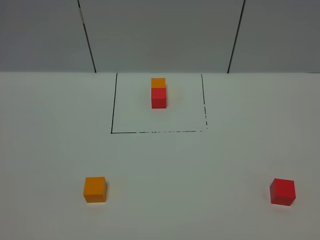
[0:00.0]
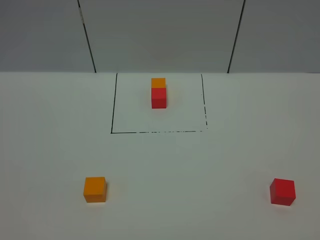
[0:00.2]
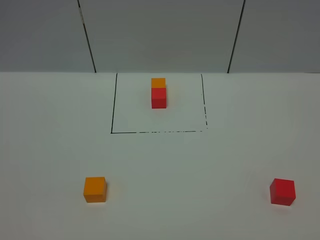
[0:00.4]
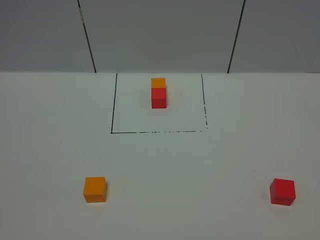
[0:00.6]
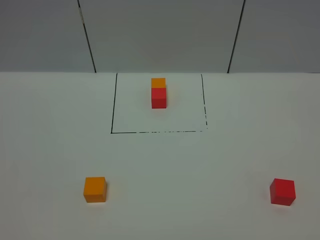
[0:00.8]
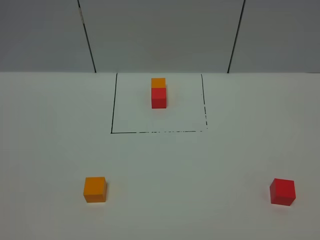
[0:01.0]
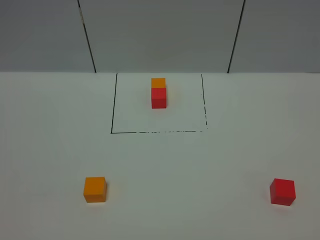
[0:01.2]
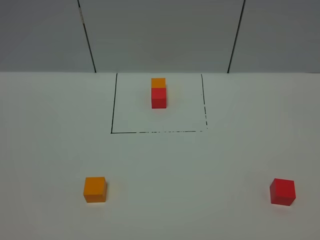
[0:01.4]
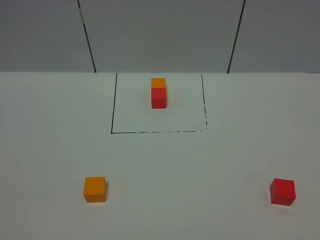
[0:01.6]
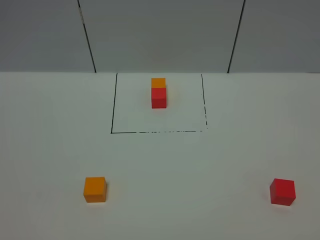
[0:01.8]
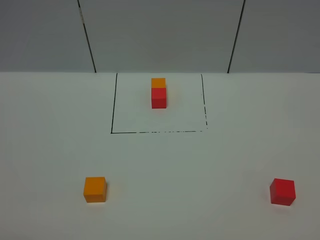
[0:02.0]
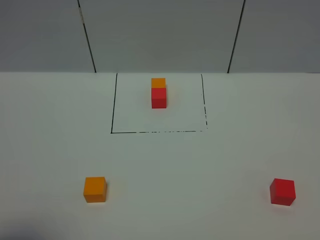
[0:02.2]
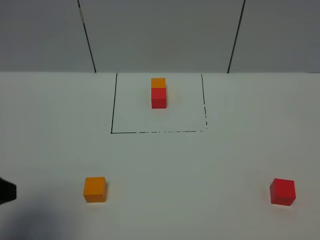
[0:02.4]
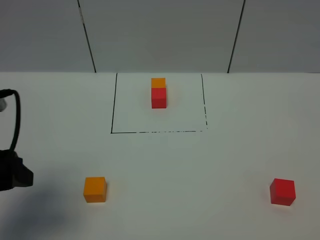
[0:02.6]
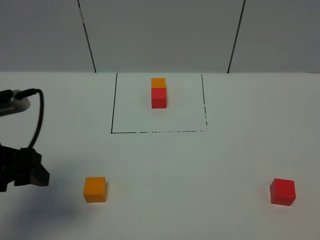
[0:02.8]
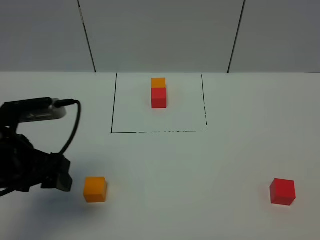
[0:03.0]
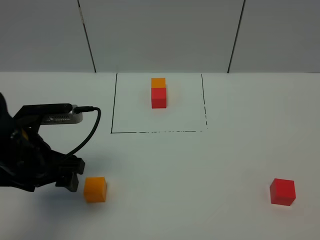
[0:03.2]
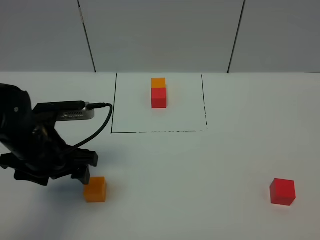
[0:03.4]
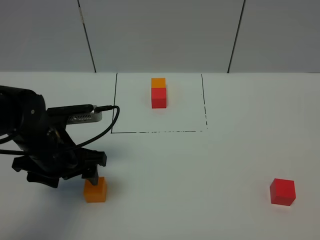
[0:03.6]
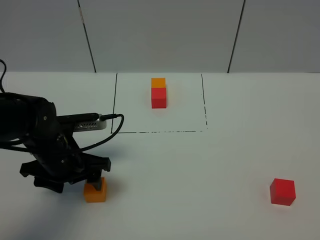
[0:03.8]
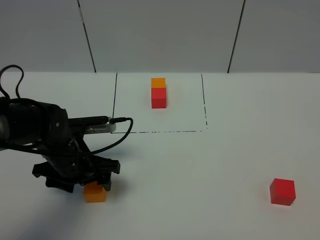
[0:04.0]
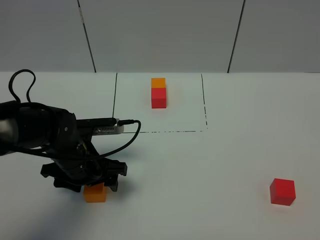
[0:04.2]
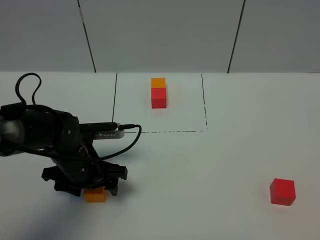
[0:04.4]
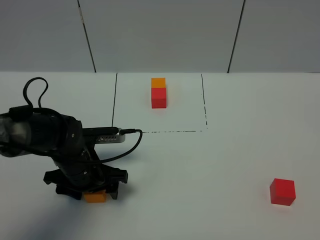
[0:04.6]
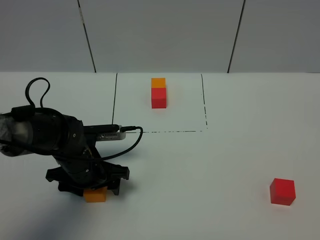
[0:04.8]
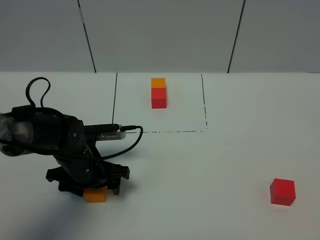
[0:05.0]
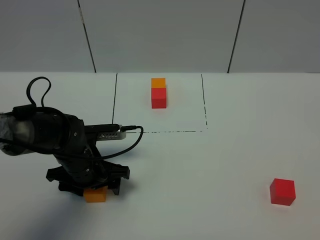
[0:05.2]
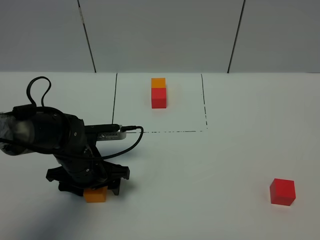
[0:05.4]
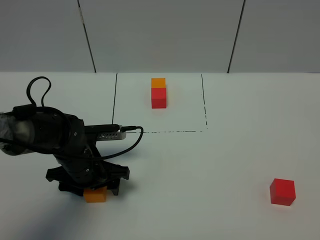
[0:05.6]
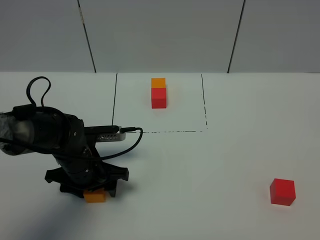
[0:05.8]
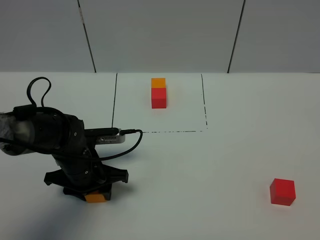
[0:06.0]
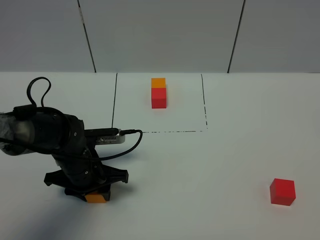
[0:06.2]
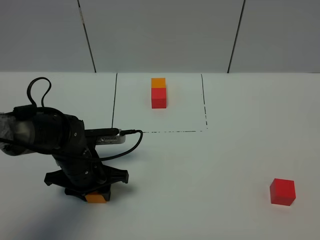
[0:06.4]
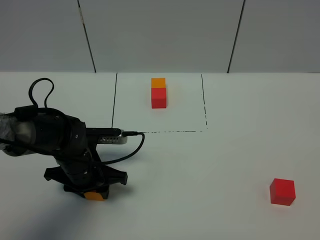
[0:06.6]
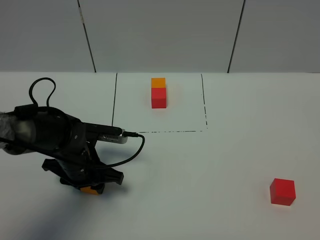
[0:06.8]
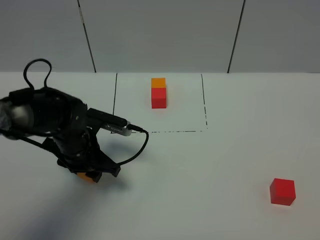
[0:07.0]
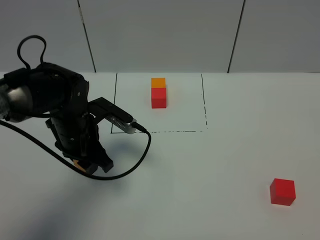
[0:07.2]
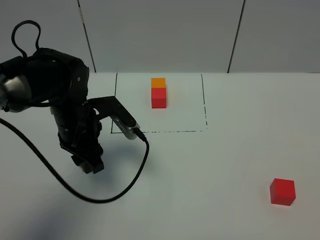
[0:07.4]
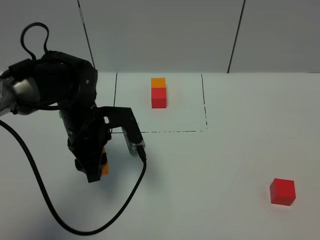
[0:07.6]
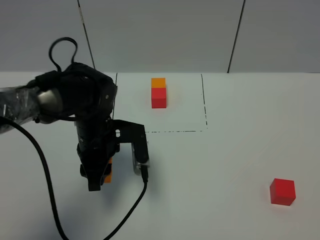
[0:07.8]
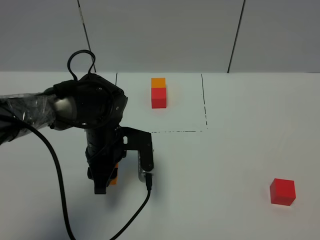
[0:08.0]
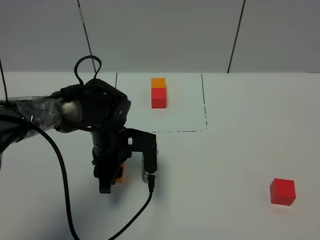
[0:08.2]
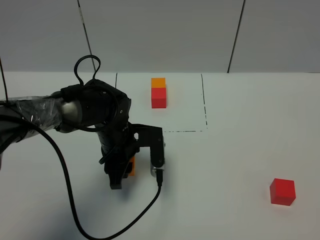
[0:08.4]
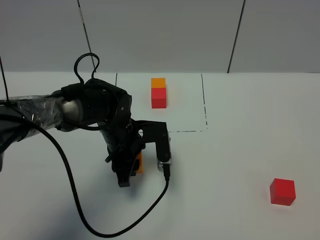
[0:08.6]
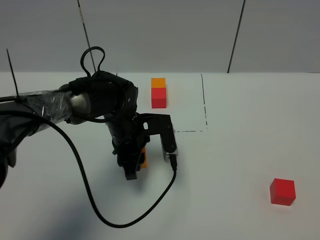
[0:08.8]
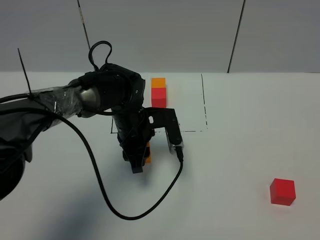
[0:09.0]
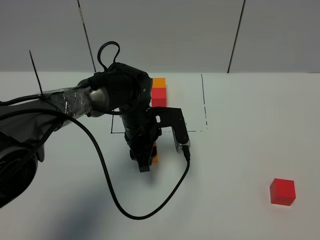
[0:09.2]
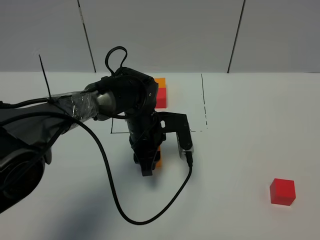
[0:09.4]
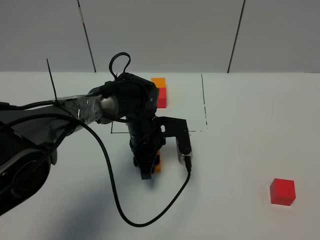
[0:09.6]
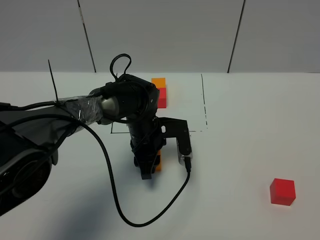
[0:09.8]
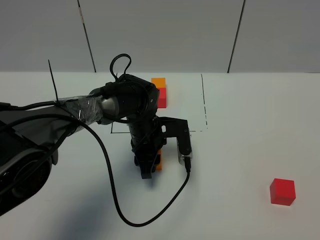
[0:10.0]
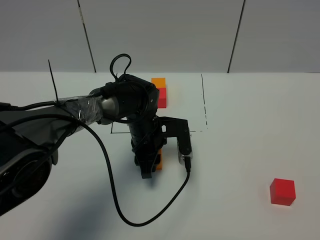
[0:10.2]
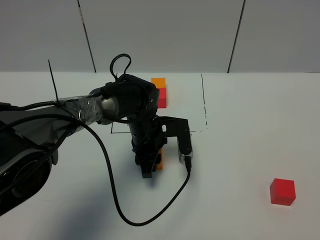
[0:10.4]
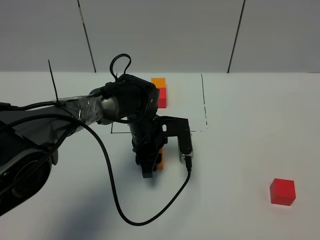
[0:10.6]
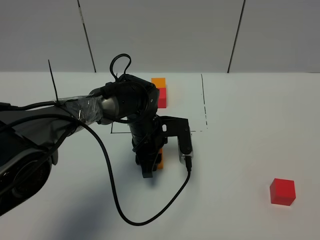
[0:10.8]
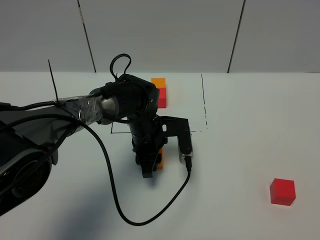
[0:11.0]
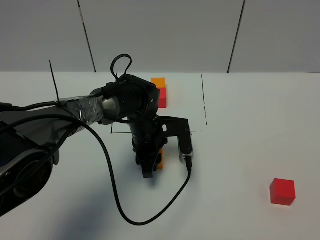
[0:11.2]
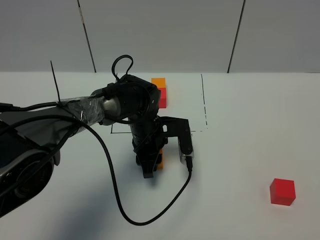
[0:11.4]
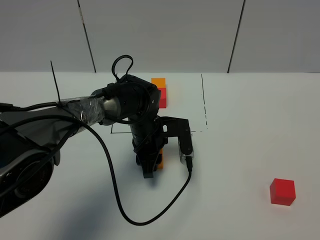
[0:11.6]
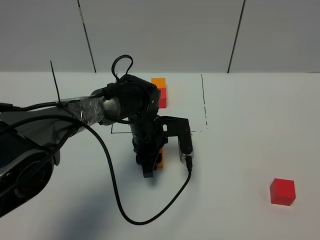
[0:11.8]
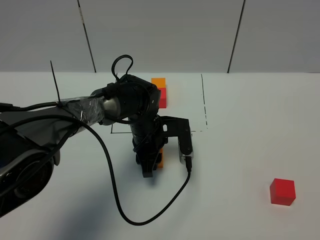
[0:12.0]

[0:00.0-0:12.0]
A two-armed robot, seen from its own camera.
Task of the whole recording: According to the building block template in front, assemble the scattered blocks together.
0:00.0 to 0:01.6: Neither gripper changes place.
0:01.6 to 0:03.0: The left gripper moves forward, about 25 cm.
0:03.0 to 0:04.4: The left gripper is displaced downward, forward and to the right by some 15 cm.
0:04.4 to 0:06.0: The left gripper closes up.
0:06.0 to 0:07.6: The left gripper moves upward, about 10 cm.
0:07.6 to 0:09.0: The left gripper heads to the right, covering roughly 5 cm.
0:09.0 to 0:10.4: The grippers stay close to where they were, moving slightly.
0:10.4 to 0:12.0: The two grippers keep their place.

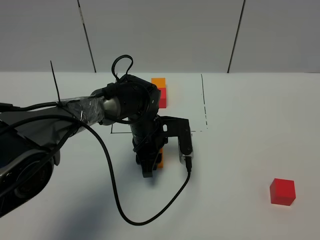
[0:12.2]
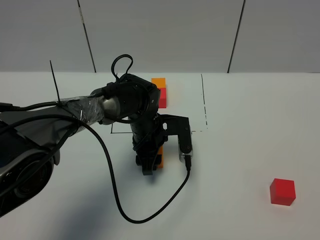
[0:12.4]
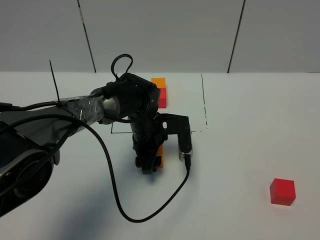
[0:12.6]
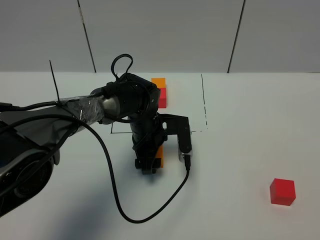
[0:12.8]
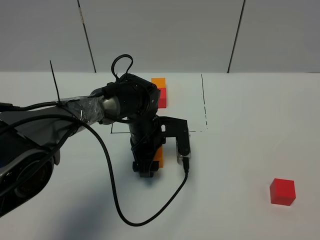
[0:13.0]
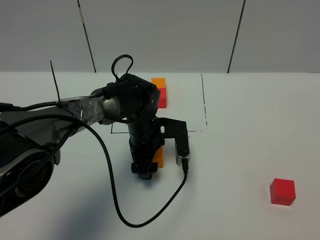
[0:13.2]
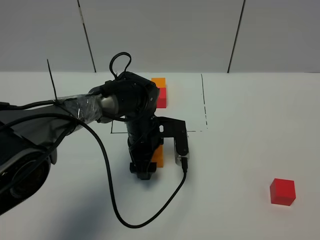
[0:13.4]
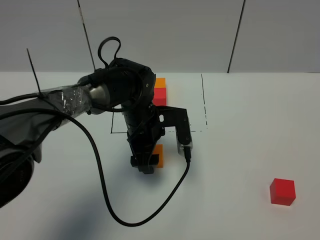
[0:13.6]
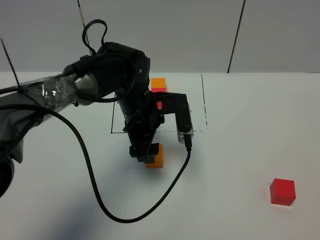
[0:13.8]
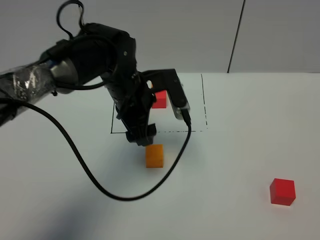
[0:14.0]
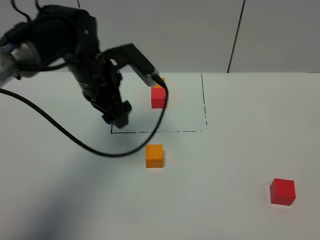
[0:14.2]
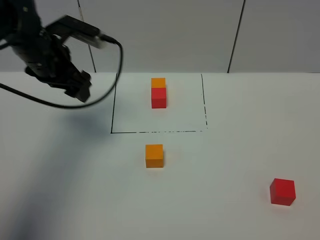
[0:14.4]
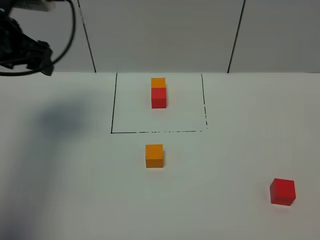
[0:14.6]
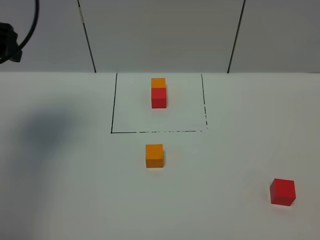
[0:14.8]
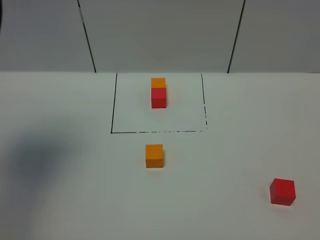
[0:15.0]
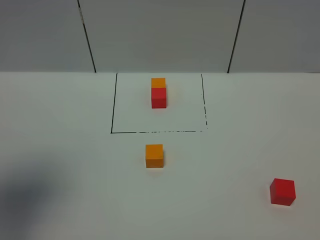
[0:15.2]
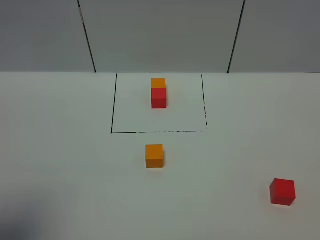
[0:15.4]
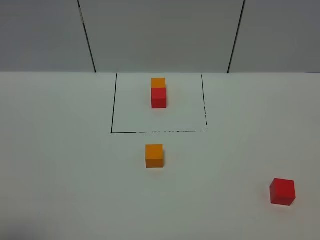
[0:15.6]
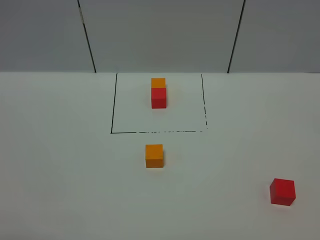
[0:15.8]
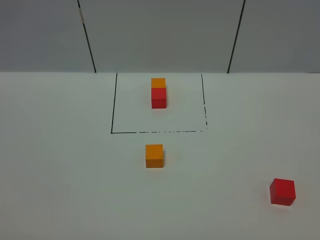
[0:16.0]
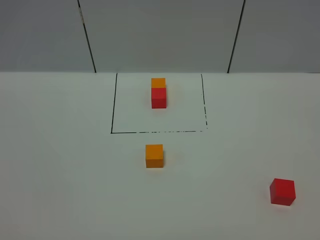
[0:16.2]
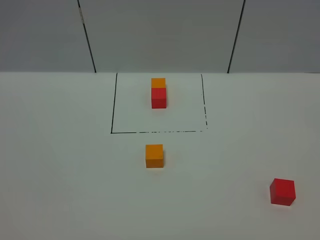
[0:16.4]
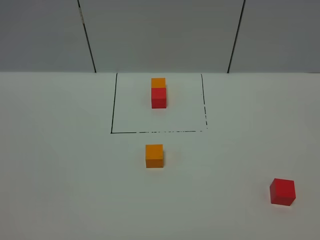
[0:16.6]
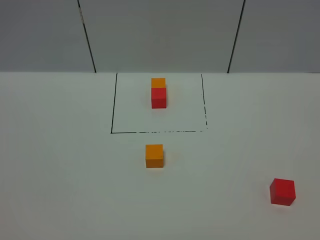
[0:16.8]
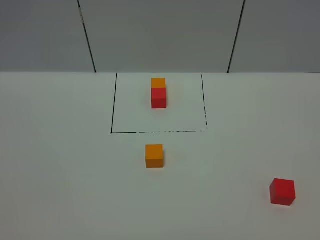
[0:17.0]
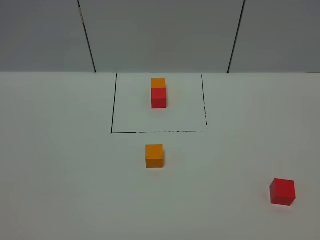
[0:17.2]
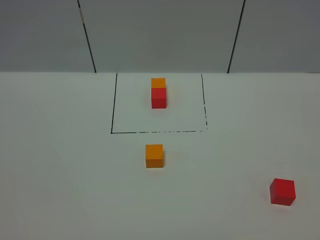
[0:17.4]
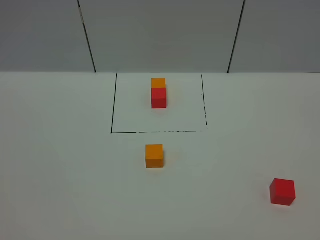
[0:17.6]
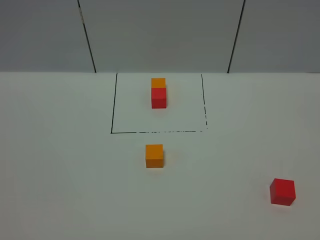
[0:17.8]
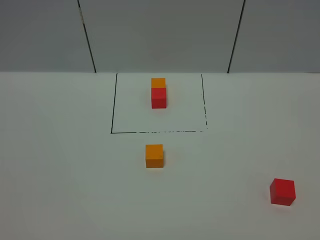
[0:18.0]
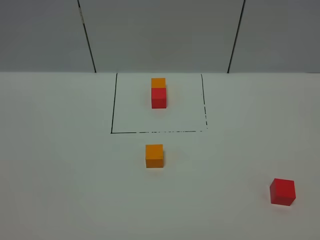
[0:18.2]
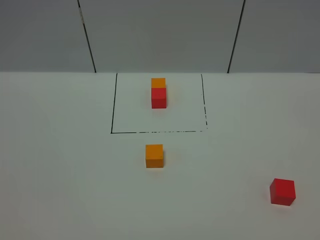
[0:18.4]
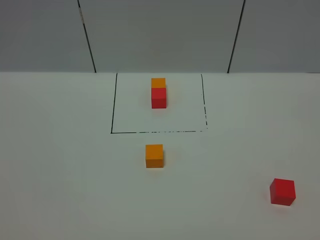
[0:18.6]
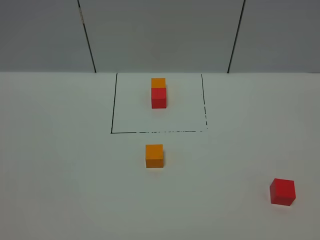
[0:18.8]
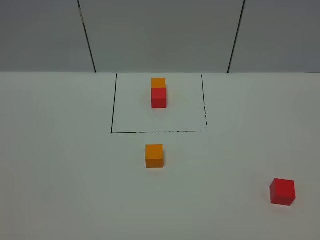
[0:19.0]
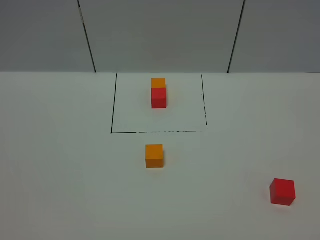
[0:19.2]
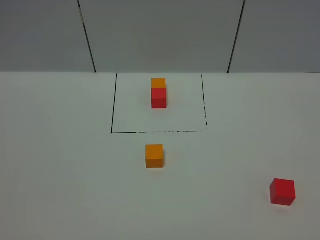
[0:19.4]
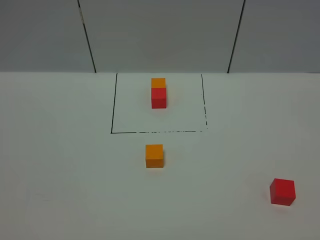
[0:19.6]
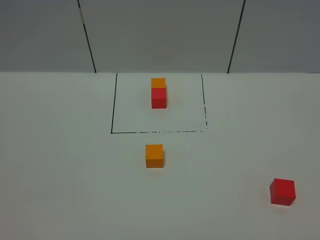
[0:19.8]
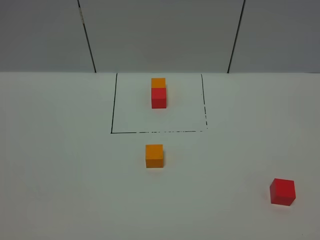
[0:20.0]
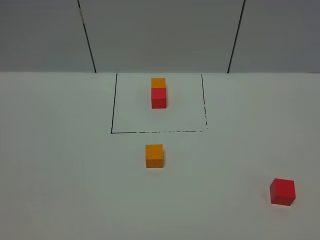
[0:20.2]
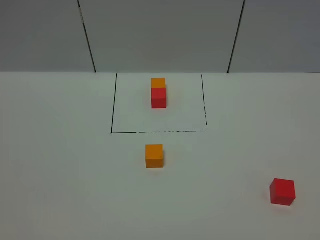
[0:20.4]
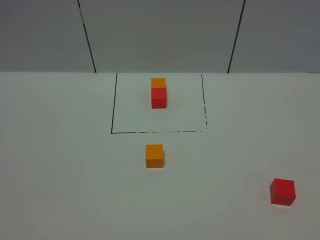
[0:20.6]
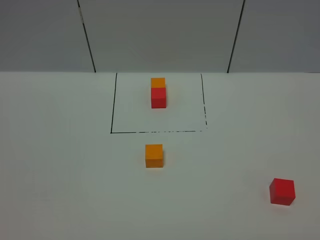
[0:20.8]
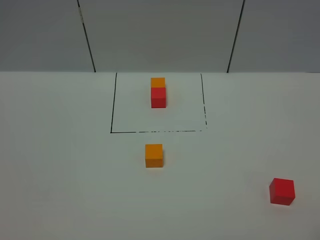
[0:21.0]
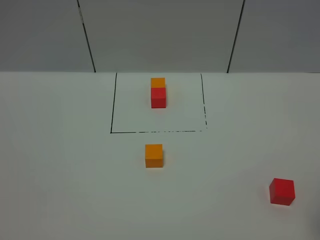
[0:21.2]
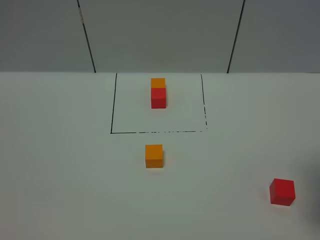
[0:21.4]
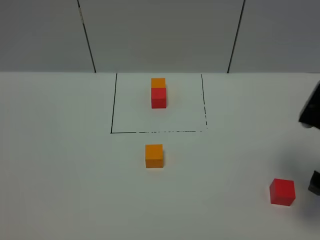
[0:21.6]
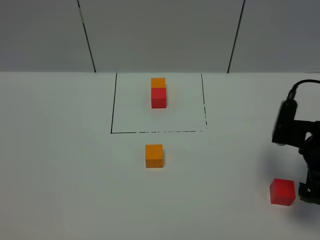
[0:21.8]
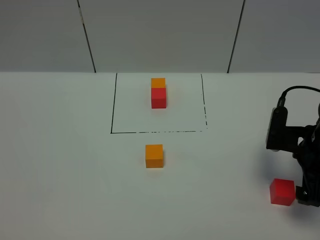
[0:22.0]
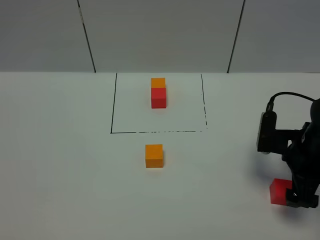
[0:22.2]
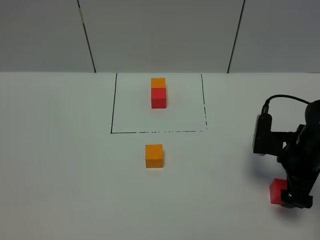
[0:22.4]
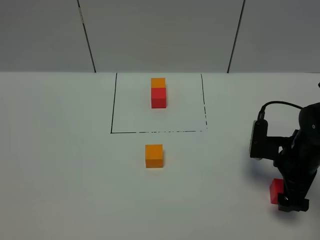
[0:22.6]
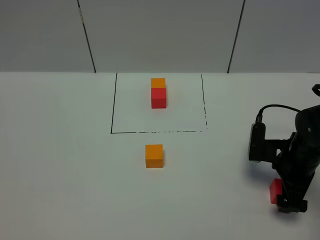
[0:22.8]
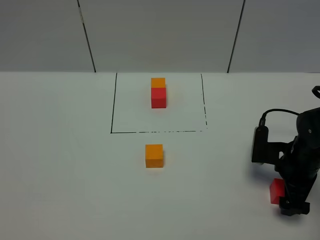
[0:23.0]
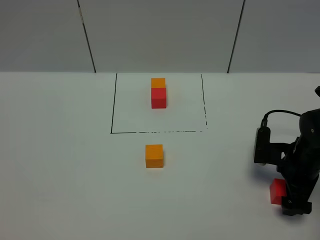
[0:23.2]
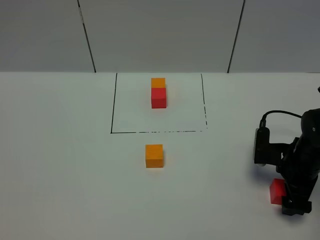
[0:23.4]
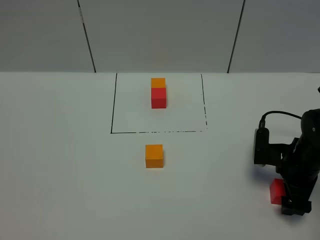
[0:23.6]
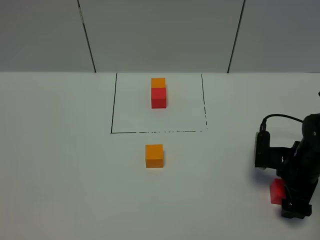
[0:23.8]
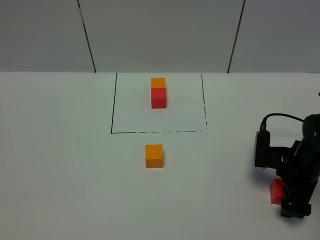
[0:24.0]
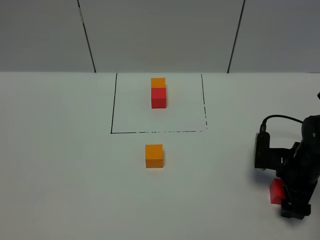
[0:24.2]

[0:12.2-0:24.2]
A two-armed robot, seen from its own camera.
Task of the whole recording: According to the building block template in front, assemble the scattered blocks together.
0:12.2 to 0:13.8: The left gripper moves upward, about 10 cm, and opens its fingers.
0:13.8 to 0:15.2: The left gripper moves to the left, upward and backward, about 40 cm.
0:15.2 to 0:16.6: The left gripper heads backward and downward, covering roughly 20 cm.
0:18.2 to 0:19.8: Both grippers stay put.
0:21.2 to 0:22.6: The right gripper shifts approximately 25 cm downward and forward.
0:22.6 to 0:24.2: The grippers stay close to where they were, moving slightly.
